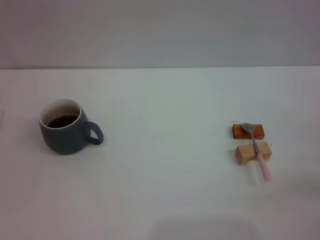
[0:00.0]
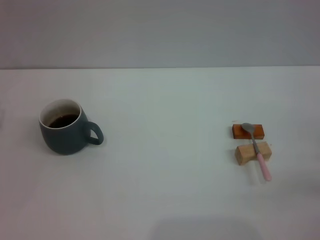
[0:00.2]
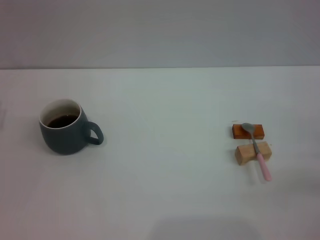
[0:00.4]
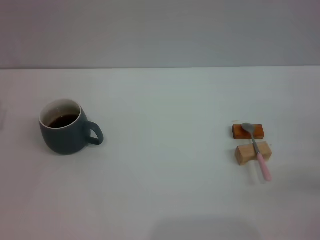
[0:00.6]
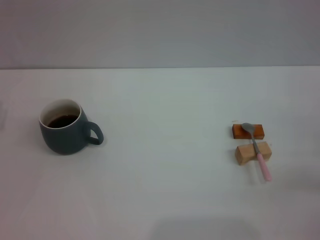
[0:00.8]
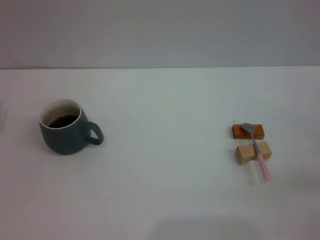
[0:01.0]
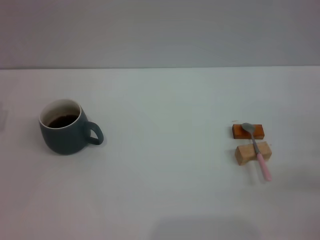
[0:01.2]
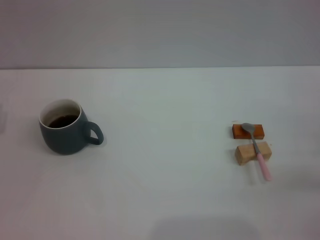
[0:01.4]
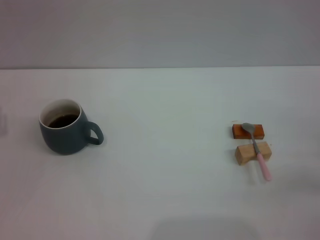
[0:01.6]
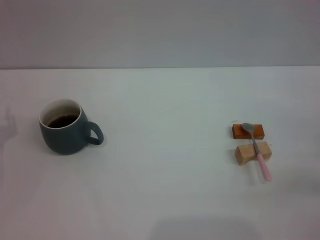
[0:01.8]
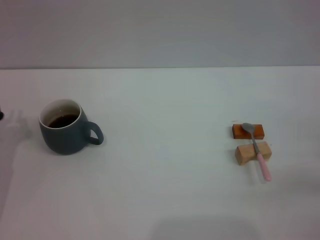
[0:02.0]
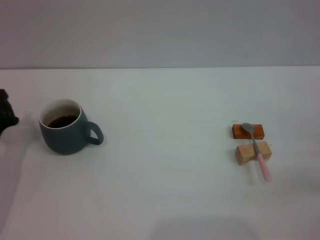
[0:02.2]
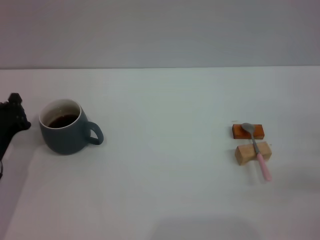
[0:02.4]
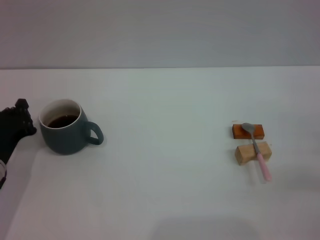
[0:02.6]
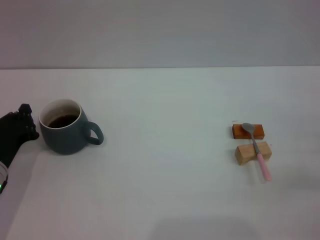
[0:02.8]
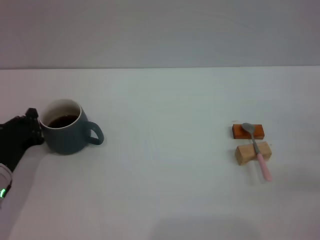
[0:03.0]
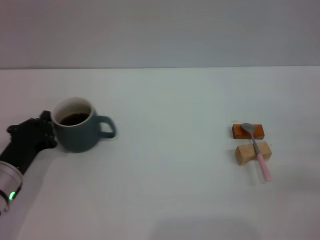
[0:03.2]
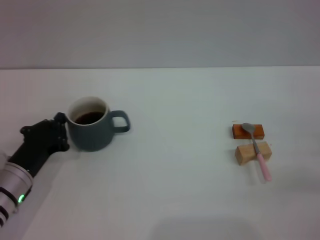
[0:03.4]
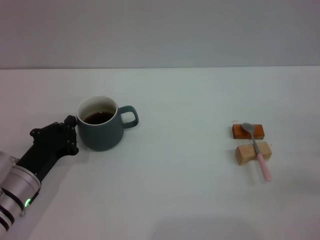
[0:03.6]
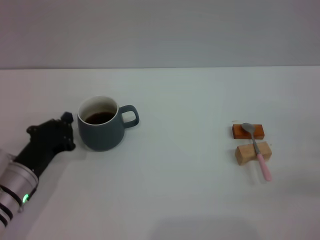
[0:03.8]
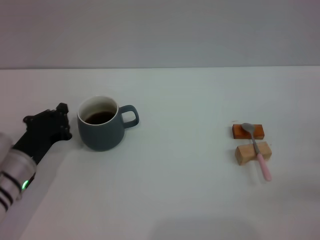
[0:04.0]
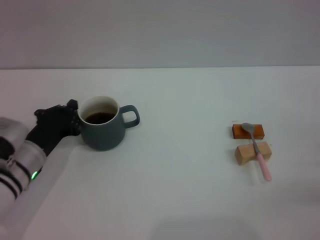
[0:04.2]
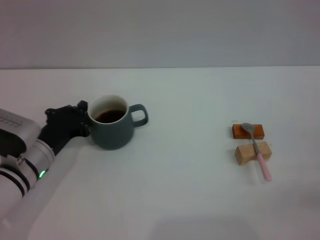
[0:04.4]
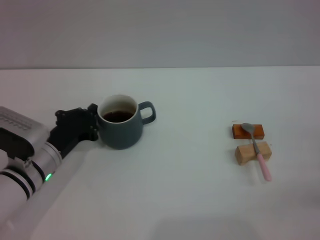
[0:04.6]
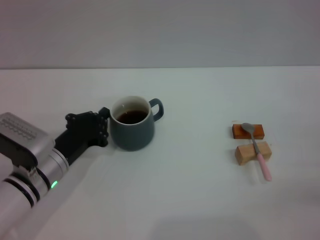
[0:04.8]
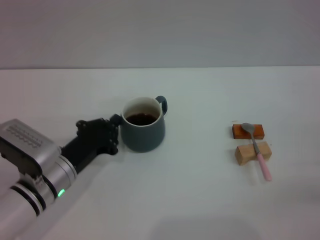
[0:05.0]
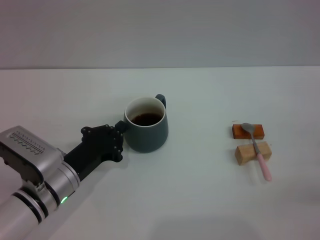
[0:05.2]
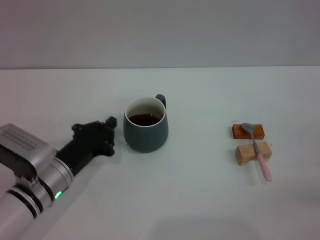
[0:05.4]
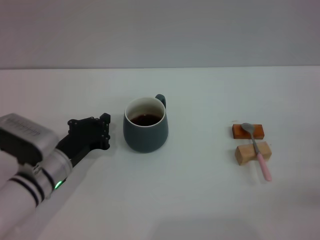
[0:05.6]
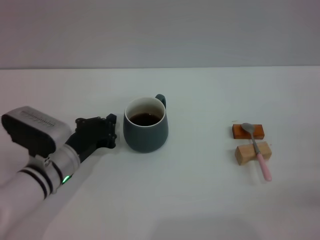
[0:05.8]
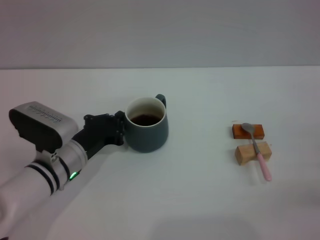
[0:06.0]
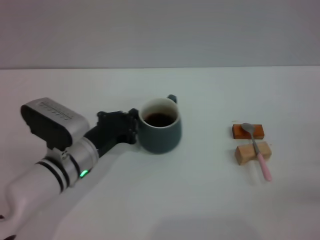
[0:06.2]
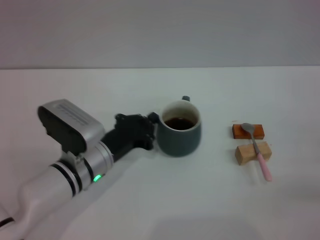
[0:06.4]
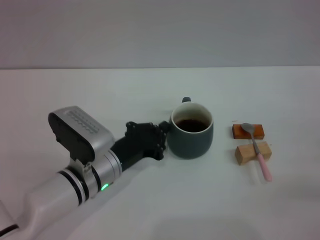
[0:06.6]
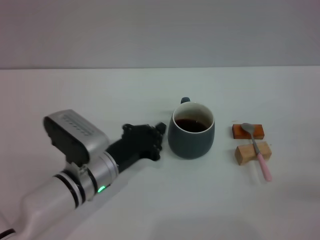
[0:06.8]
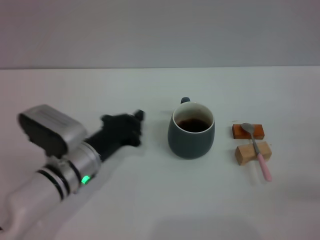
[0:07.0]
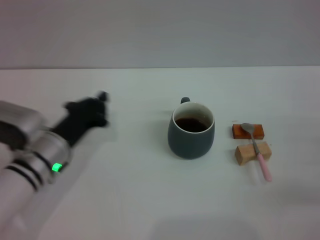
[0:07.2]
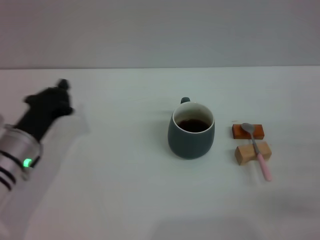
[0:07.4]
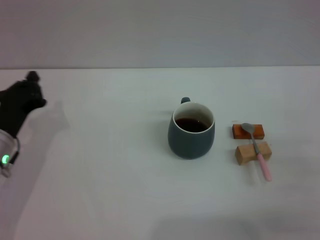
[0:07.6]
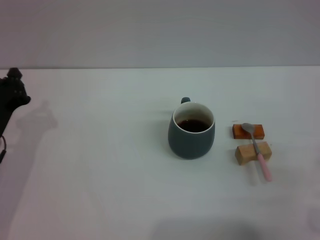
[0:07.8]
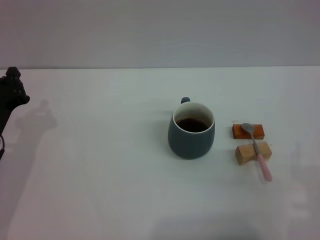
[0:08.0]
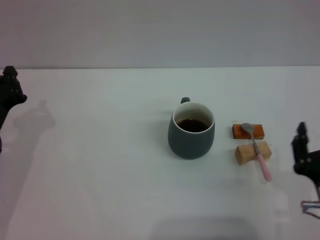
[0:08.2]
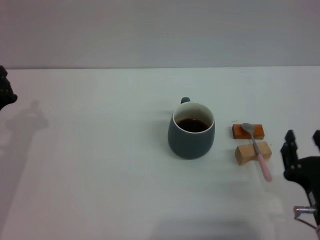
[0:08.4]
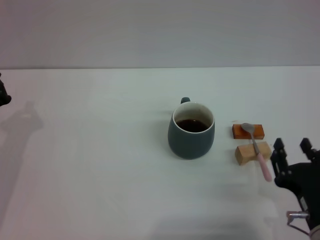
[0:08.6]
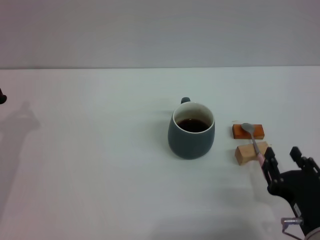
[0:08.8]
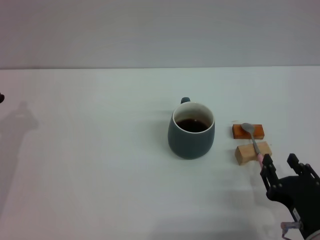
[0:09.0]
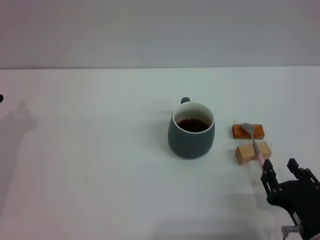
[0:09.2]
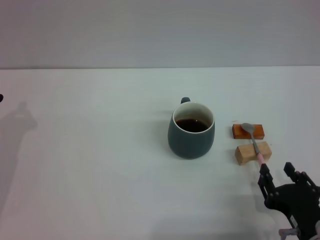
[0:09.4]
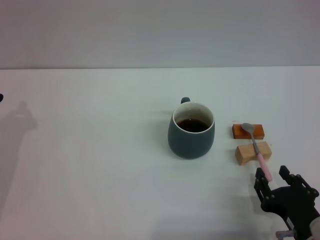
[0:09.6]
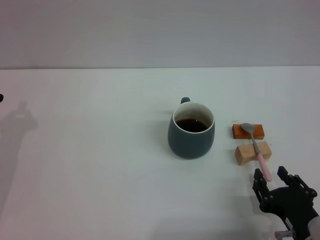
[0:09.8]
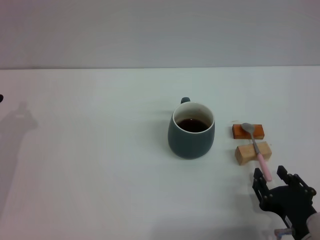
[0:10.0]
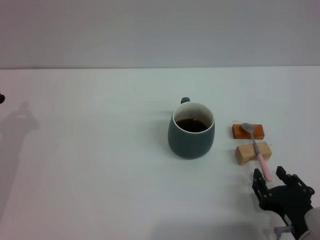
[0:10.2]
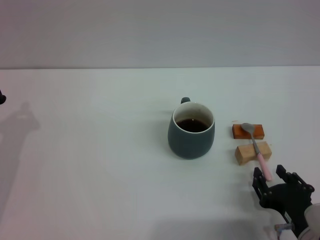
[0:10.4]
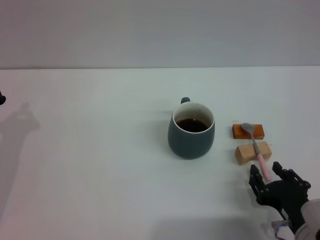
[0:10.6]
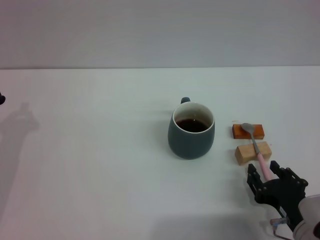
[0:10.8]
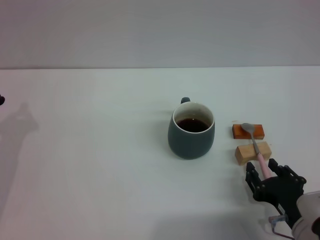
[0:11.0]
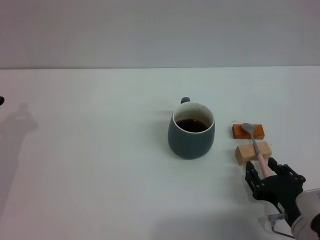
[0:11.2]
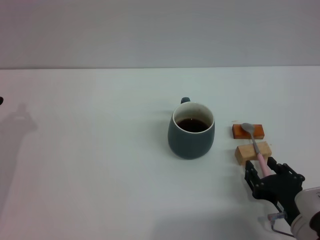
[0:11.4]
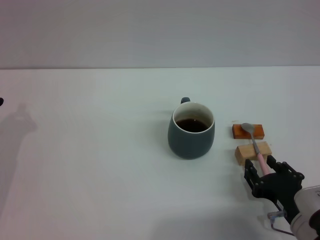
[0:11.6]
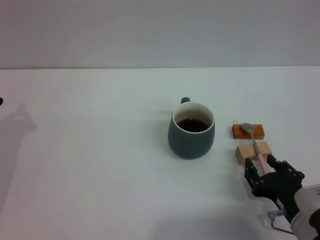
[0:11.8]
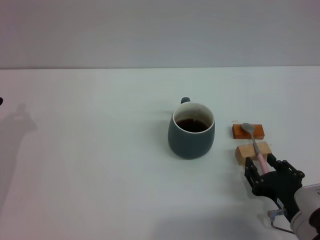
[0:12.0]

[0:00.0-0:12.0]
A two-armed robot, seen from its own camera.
Task of the whole recording: Move the grey cup to the center, lift the pink spoon, stir it three times in the cup, and put the spoon into the cup.
Step, 0:00.0 to 0:06.8: Move the cup with coffee to the center of view with the left gripper.
0:01.6 to 0:03.0: The left gripper travels to the right by about 5 cm, and closes up.
0:03.0 to 0:04.4: The left gripper shifts some 5 cm to the right.
0:04.4 to 0:06.0: The grippers make only small movements.
0:06.0 to 0:07.6: The grippers both shift to the left by some 10 cm.
0:07.6 to 0:09.0: The right gripper heads to the left and backward, covering some 10 cm.
0:09.0 to 0:12.0: There are only small adjustments of the grippers.

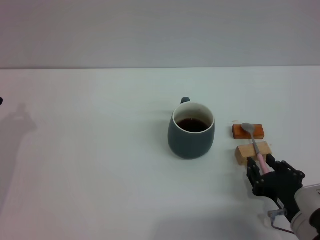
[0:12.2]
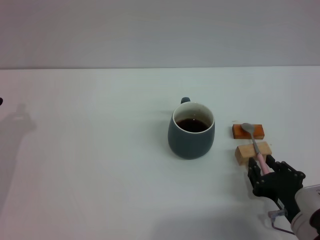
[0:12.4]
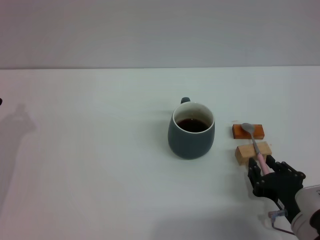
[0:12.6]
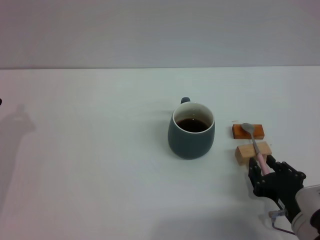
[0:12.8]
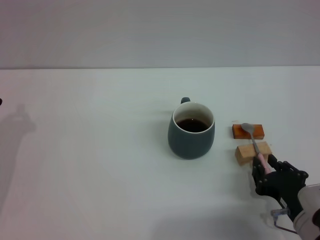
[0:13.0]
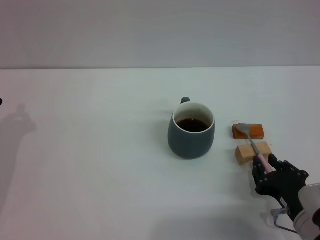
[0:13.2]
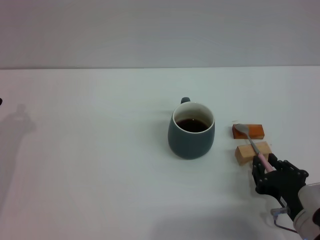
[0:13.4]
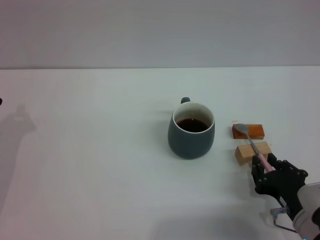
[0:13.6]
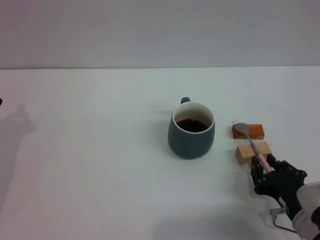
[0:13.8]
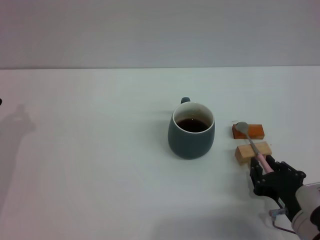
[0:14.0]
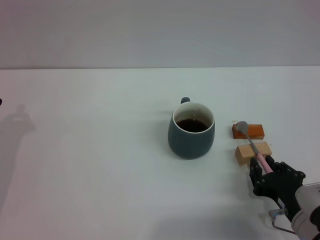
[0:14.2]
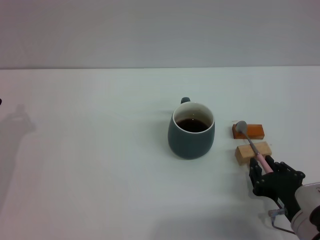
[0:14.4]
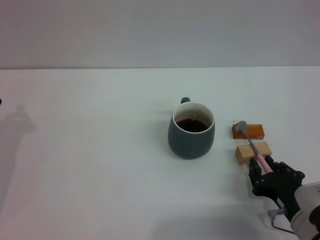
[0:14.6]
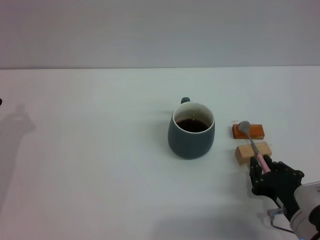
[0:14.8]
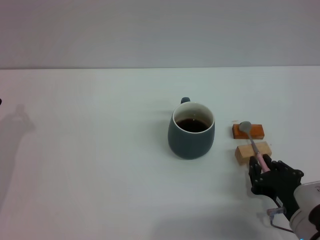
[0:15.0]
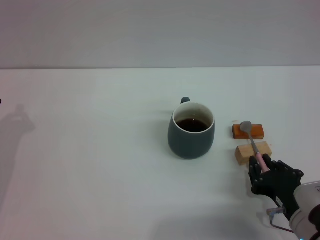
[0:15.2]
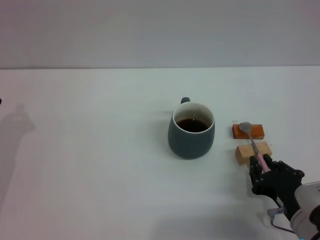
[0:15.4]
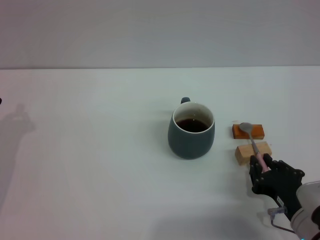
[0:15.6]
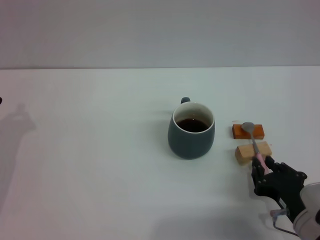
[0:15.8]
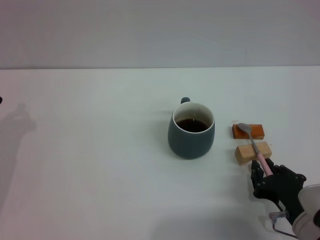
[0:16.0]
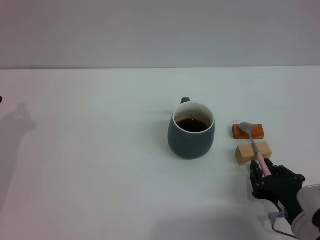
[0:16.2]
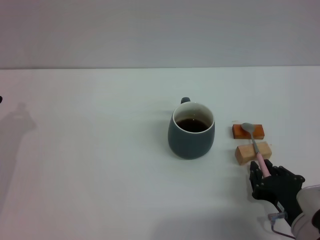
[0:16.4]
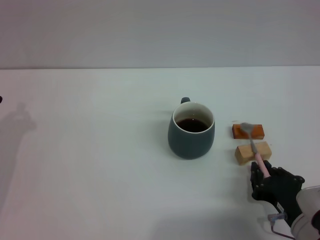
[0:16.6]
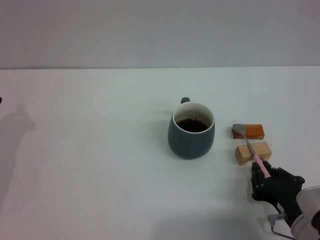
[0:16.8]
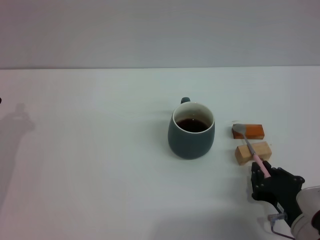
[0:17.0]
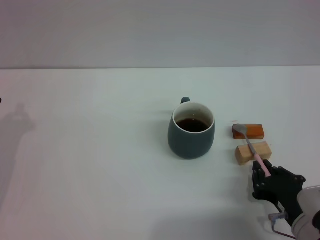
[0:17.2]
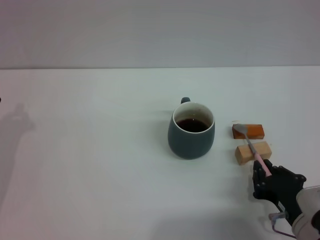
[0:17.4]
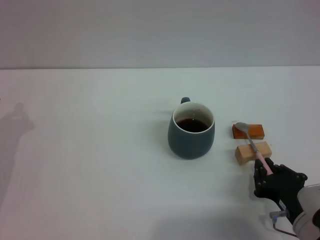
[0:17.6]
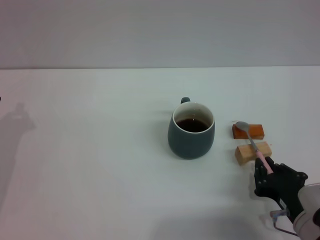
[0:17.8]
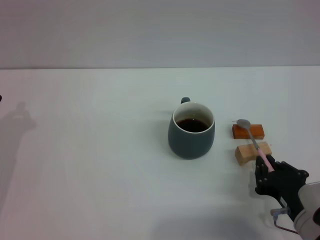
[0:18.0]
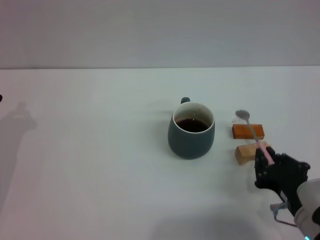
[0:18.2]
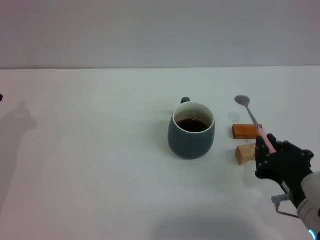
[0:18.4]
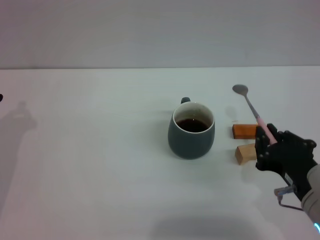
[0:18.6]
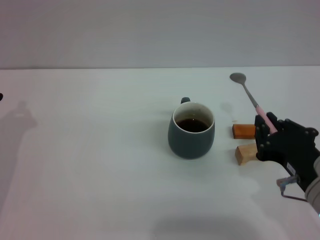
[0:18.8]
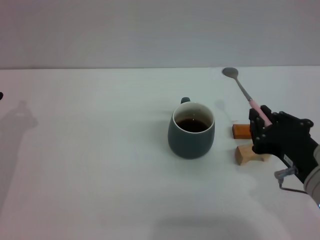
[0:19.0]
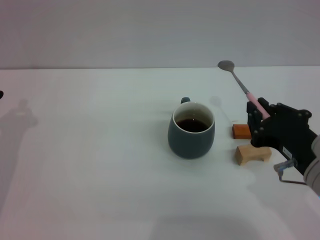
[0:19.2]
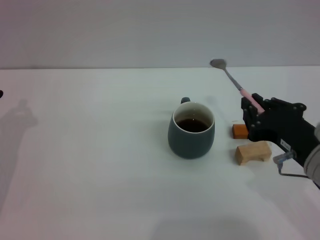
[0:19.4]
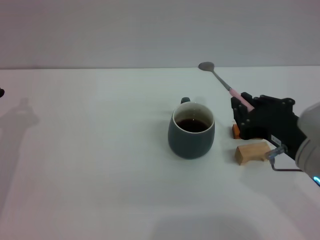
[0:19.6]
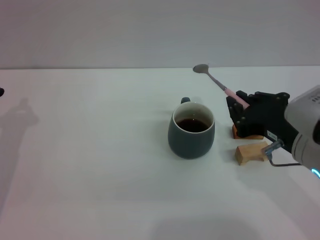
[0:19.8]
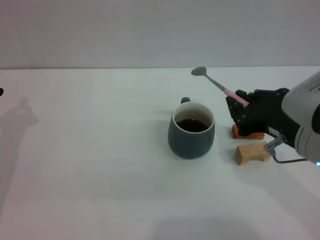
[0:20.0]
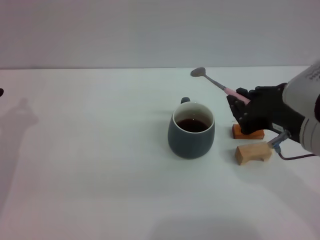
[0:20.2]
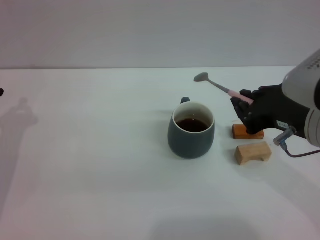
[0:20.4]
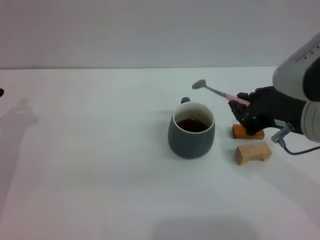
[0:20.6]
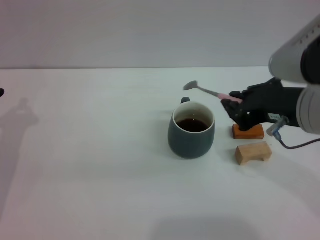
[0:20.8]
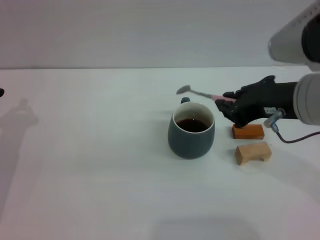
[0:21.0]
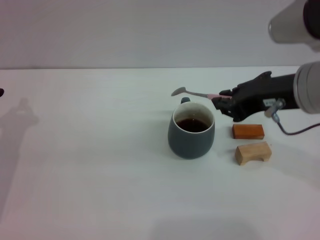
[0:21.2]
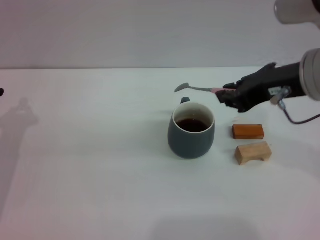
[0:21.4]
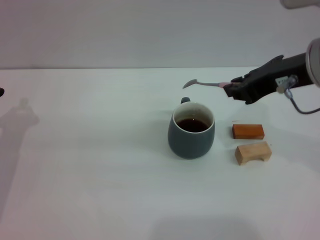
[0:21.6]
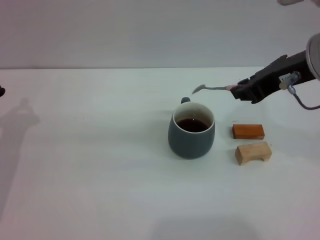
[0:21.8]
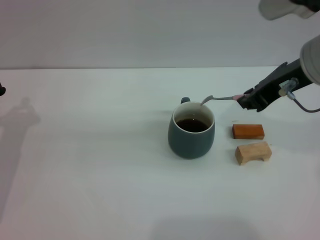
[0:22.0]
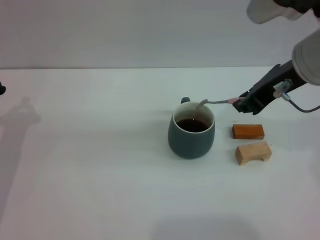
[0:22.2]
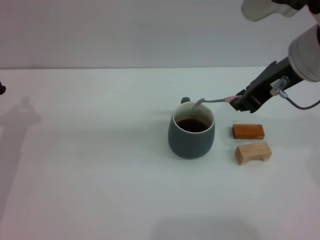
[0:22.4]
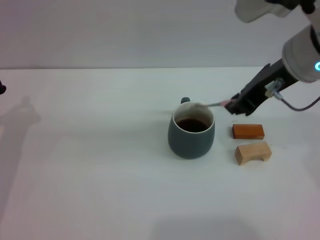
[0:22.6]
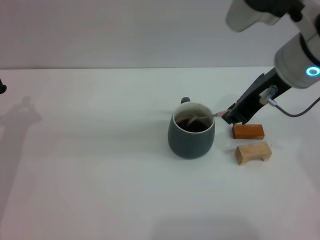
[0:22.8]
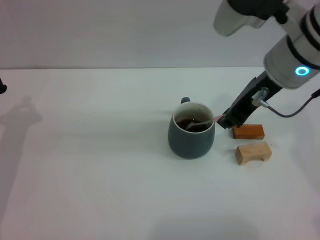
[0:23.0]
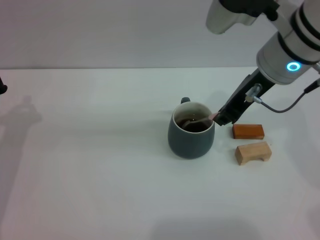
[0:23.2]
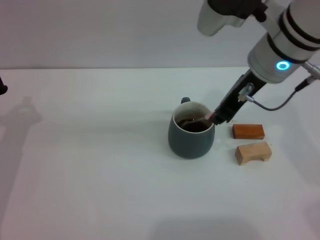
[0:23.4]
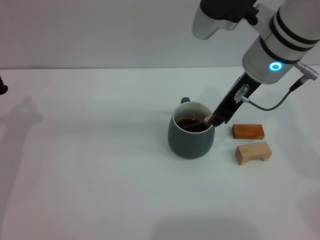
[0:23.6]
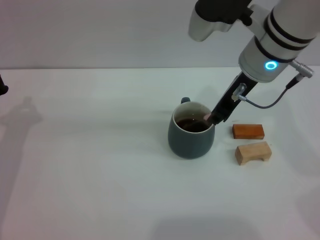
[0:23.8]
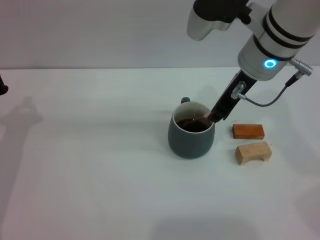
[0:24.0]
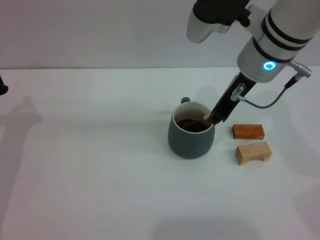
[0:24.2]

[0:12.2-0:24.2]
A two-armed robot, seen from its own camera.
Task of the whole recording: Move the grey cup to the center, lift the pink spoon, stir it three times in the cup, and put the spoon into the cup.
Step, 0:12.2 to 0:18.6: Pick up the spoon with the right gripper.
0:12.2 to 0:13.8: The right gripper closes its fingers.
0:13.8 to 0:16.6: Both grippers stay about where they are.
0:16.6 to 0:18.2: There are only small adjustments of the grippers.
0:18.2 to 0:19.8: The right gripper heads upward, covering about 10 cm.
0:19.8 to 0:21.2: The right gripper heads upward and forward, covering roughly 10 cm.
0:21.2 to 0:22.6: The right gripper travels forward by some 5 cm.
0:22.6 to 0:24.2: The right gripper goes roughly 5 cm forward.
